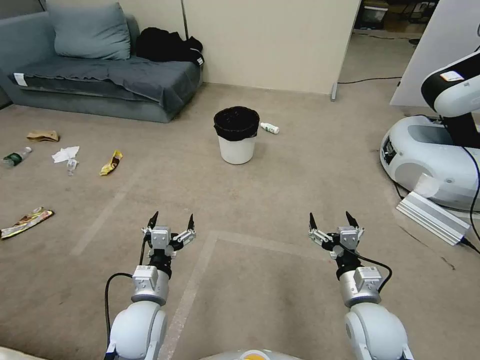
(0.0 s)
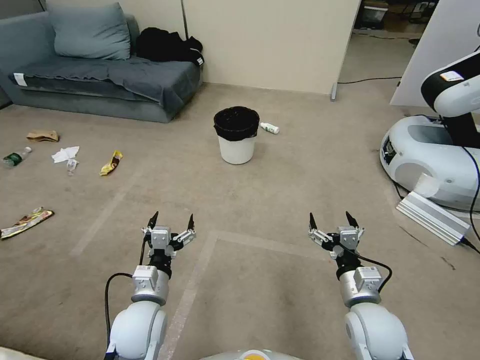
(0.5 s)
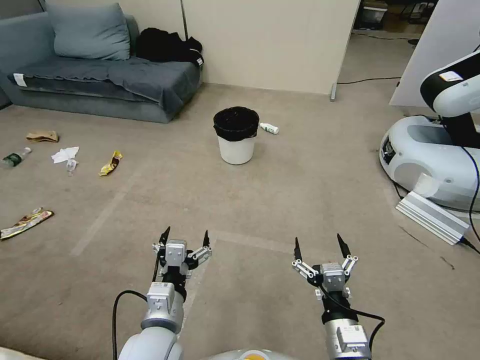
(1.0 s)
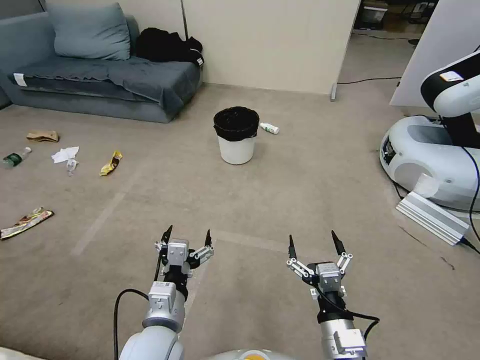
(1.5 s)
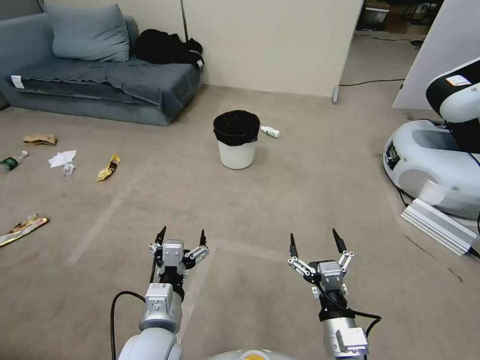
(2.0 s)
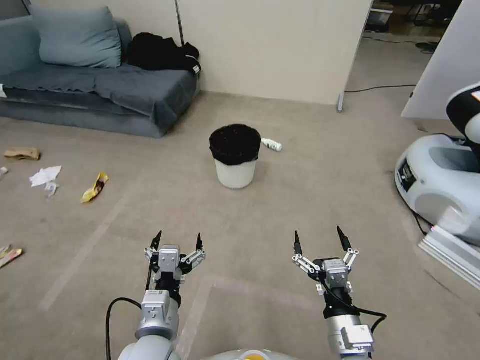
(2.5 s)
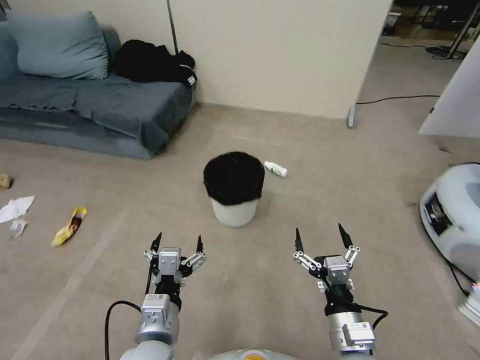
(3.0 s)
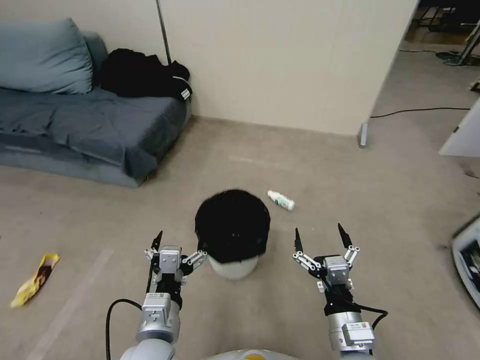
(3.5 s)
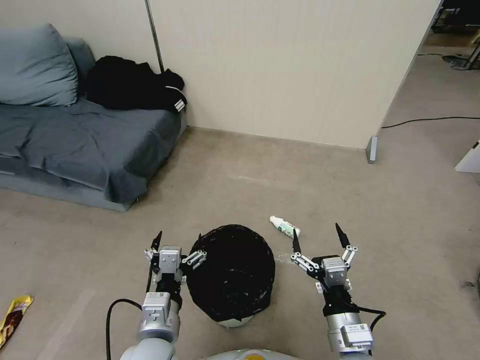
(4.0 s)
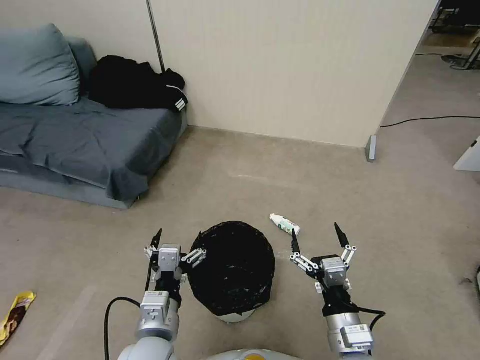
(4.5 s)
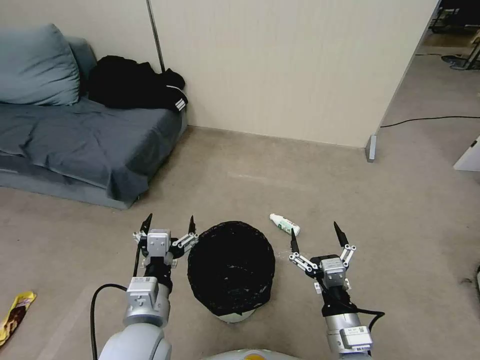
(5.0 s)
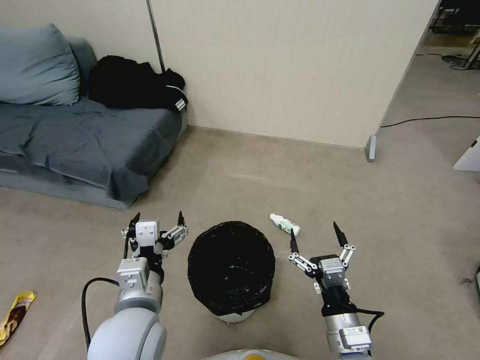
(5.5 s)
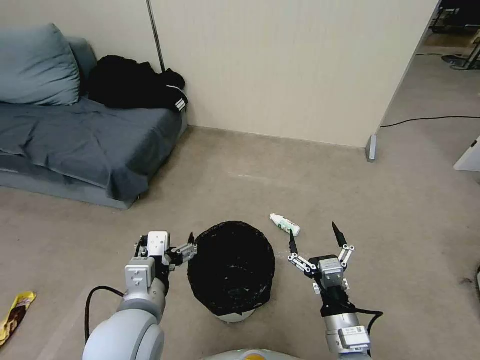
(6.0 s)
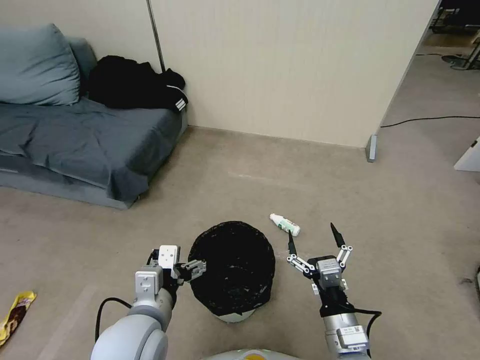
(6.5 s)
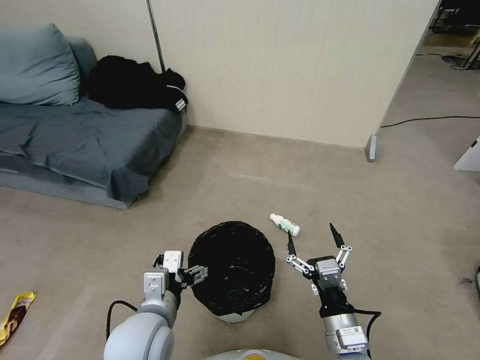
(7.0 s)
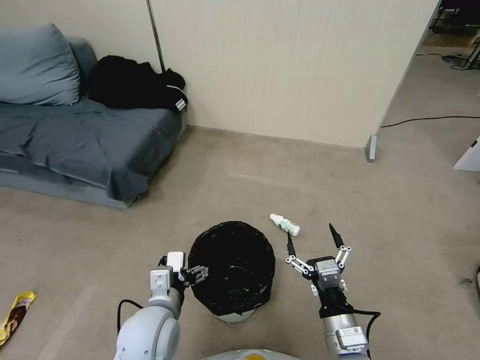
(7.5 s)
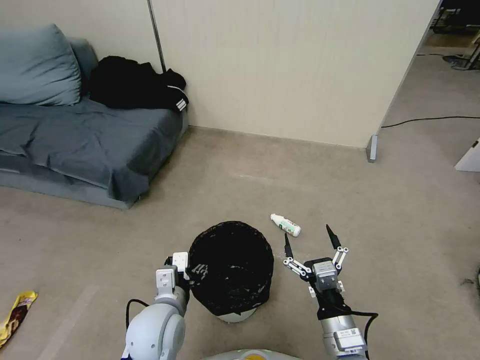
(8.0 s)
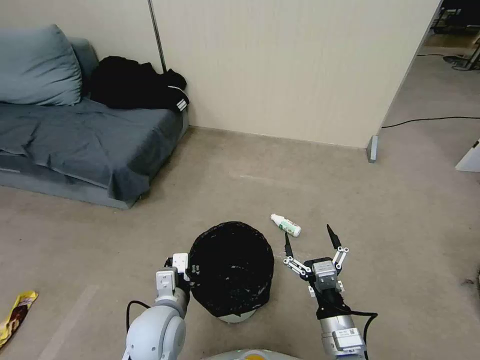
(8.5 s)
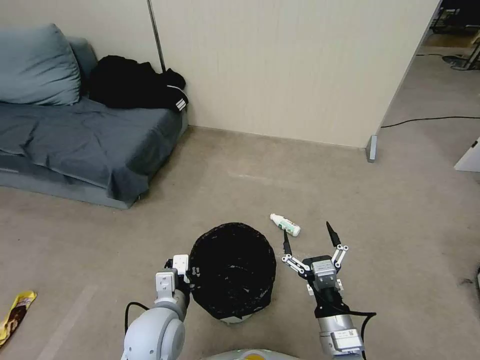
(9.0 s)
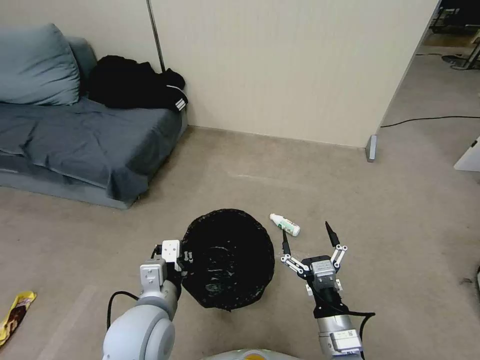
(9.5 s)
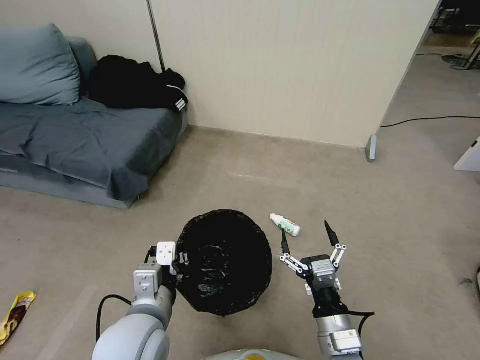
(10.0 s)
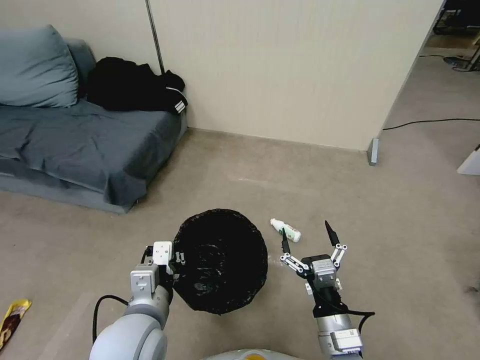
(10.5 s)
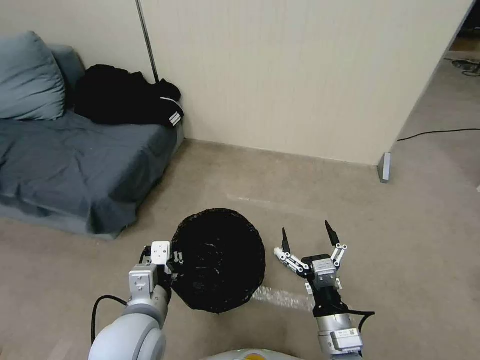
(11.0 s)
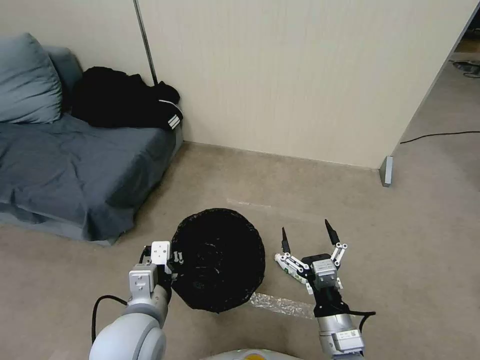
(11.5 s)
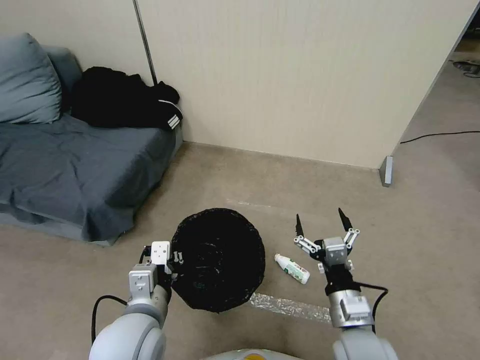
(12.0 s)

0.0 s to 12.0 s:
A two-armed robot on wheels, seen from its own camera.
Task of the whole recording: Pick up the trash bin, then pick up the garbage from the floor and place it into the trash bin.
4.0 to 6.0 s: The left gripper is displaced upward by some 10 cm.
6.0 to 8.0 s: The left gripper moves downward, roughly 10 cm, and closes.
8.0 to 10.0 s: The left gripper heads upward, covering about 10 cm, and closes its fingers.
10.0 to 12.0 s: The right gripper ends up approximately 5 cm from where it was.

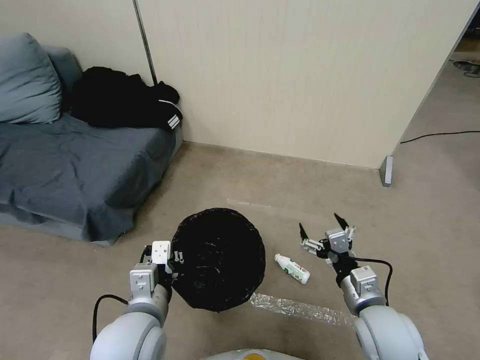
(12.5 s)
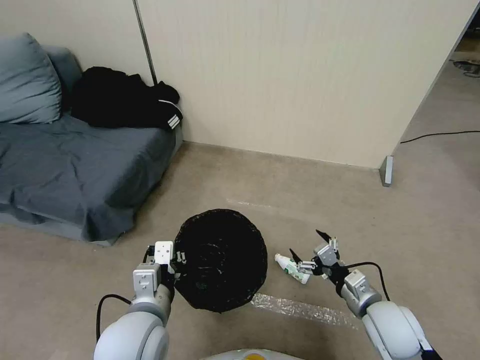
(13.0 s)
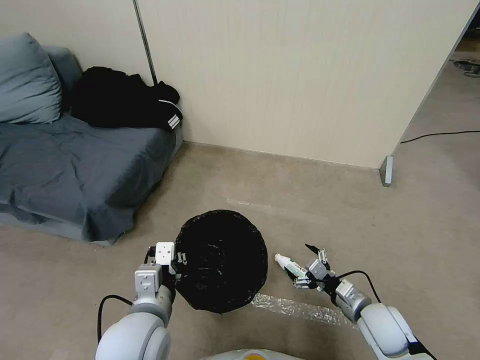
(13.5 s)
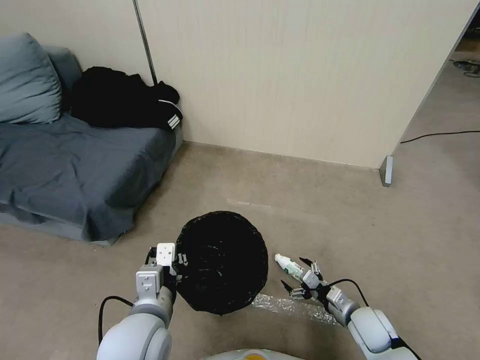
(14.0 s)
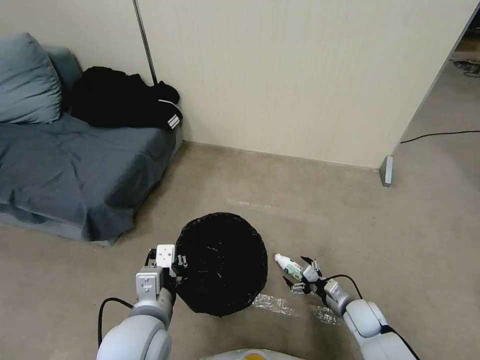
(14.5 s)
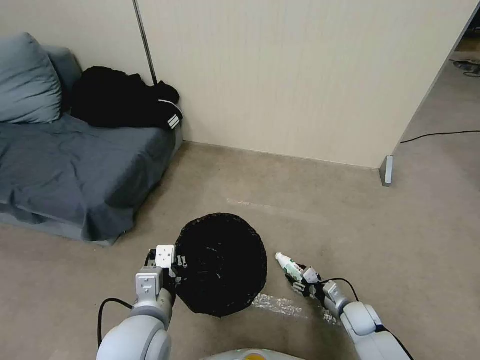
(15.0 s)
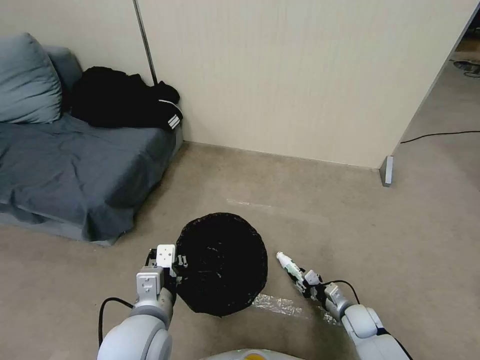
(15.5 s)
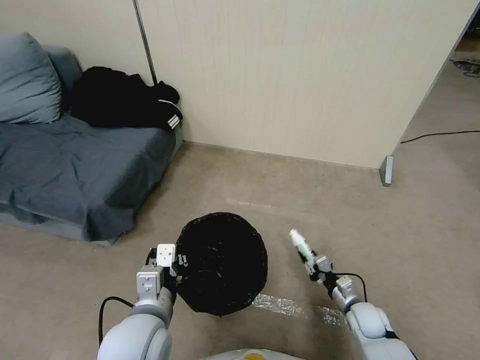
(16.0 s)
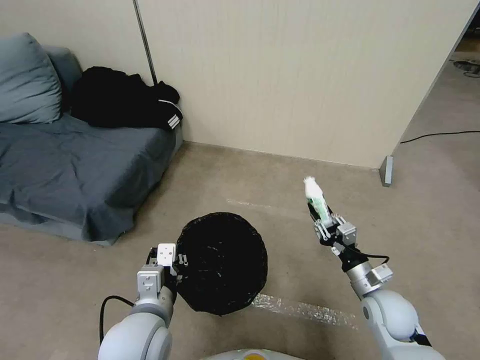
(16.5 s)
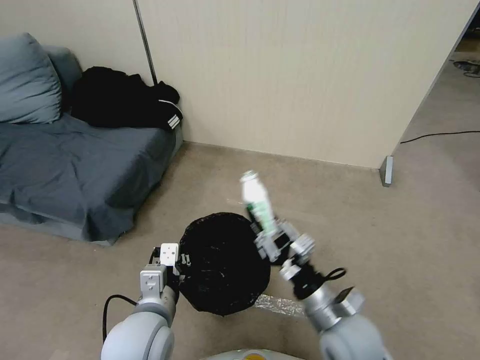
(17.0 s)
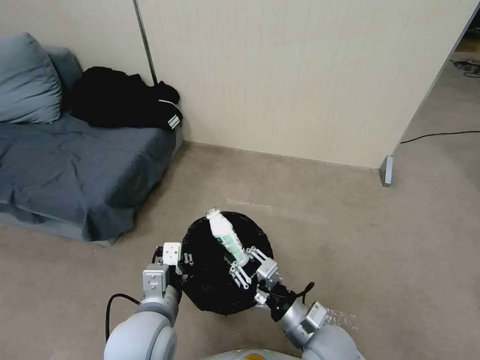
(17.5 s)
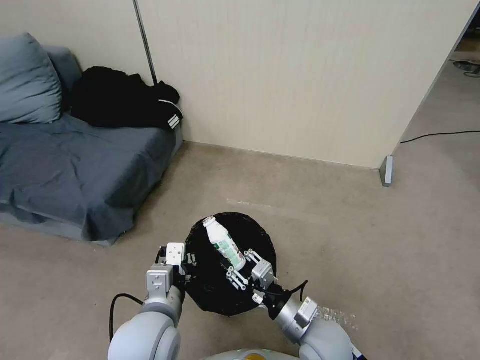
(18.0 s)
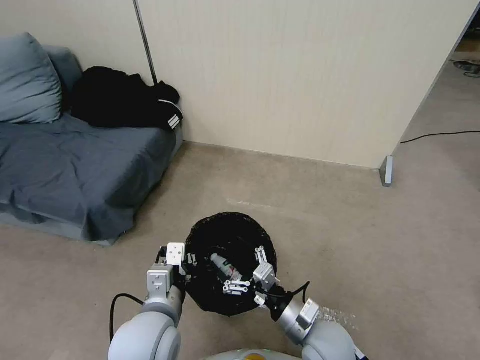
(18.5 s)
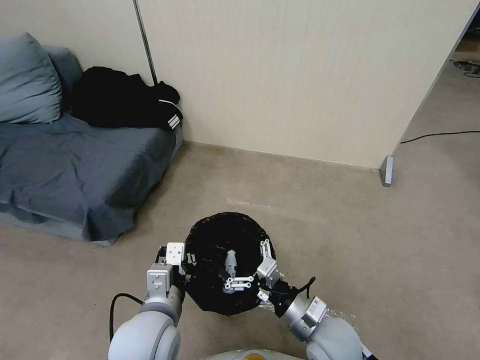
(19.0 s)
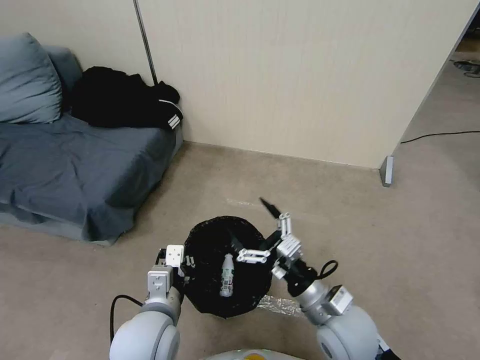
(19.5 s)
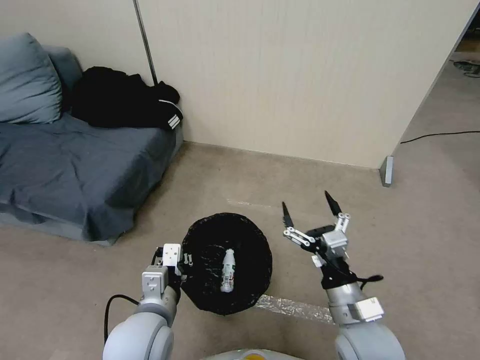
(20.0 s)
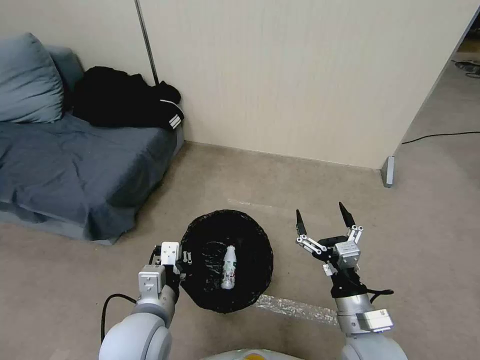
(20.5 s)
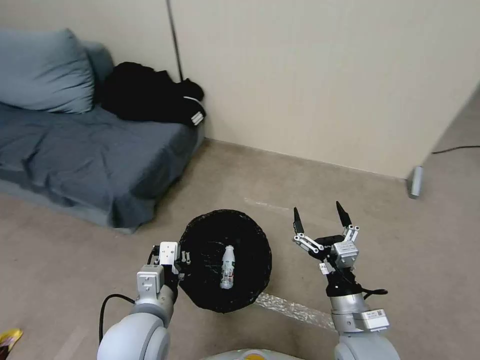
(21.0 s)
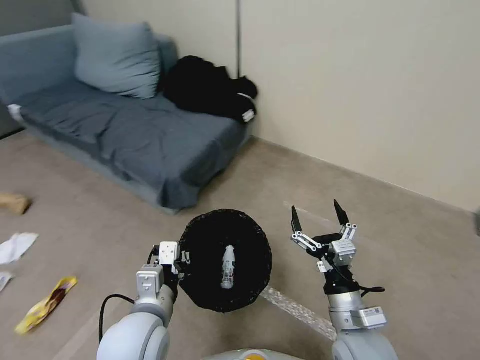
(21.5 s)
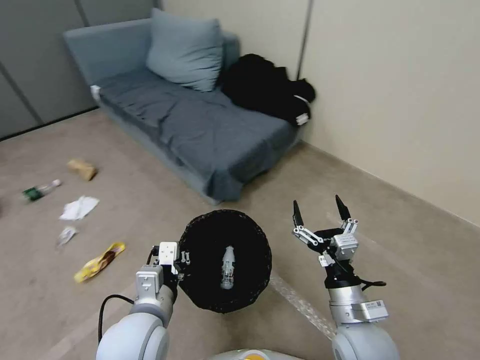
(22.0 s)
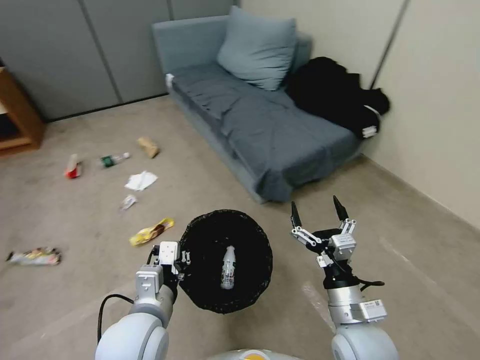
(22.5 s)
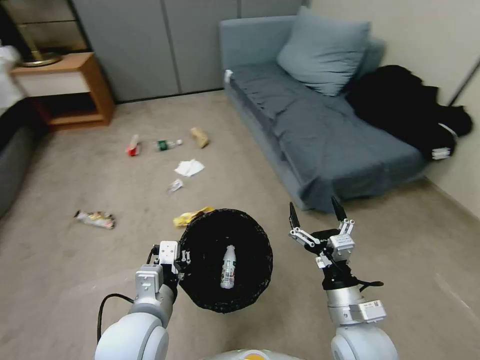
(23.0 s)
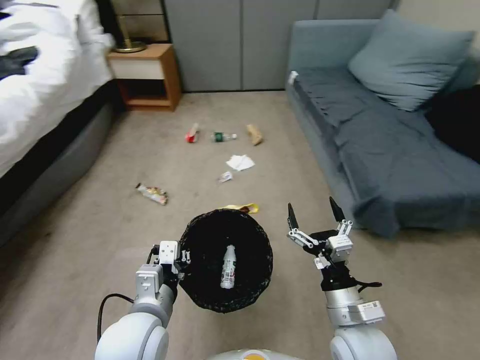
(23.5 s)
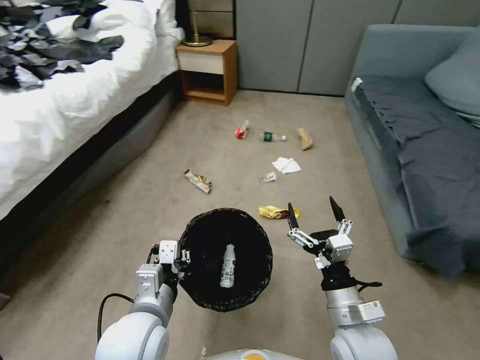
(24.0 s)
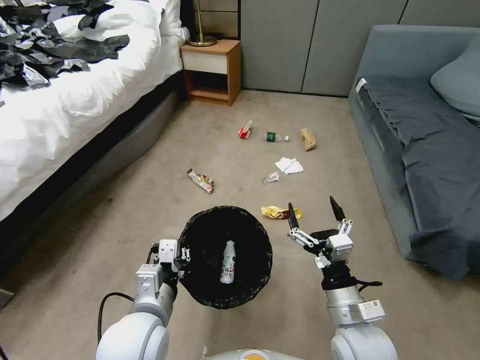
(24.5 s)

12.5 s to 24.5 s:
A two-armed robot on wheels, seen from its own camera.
Task of the whole recording: Pick up the trash bin, then pick up the garbage from the floor and place it into the trash bin.
12.5 to 14.5 s: The right gripper travels downward by about 20 cm.
14.5 to 16.5 s: The right gripper shifts some 15 cm upward, and closes.
16.5 to 18.5 s: The right gripper goes roughly 15 cm to the left and backward, and opens up.
18.5 to 20.5 s: The right gripper heads to the right and upward, covering approximately 10 cm.

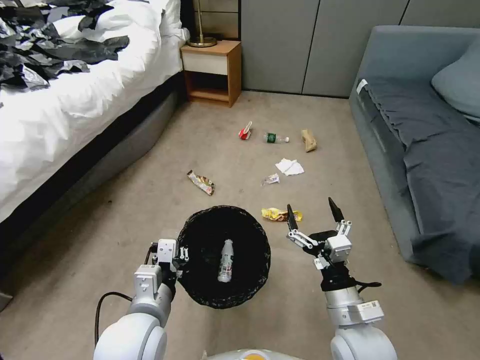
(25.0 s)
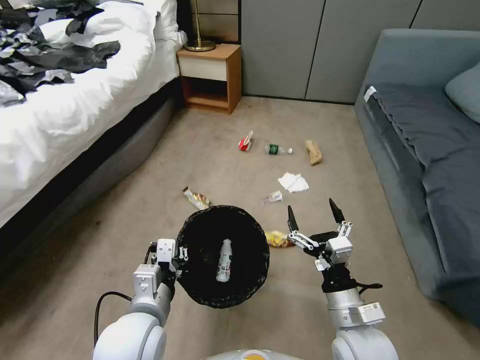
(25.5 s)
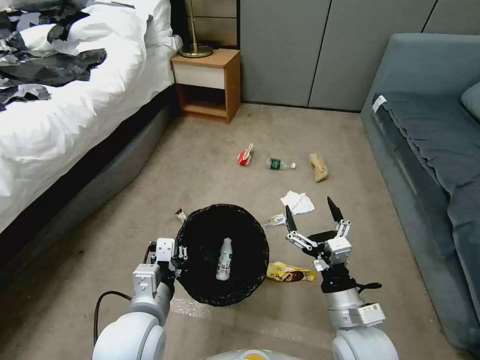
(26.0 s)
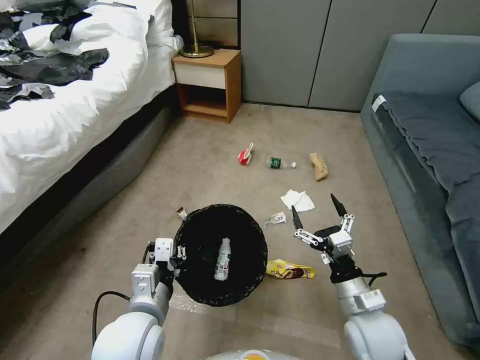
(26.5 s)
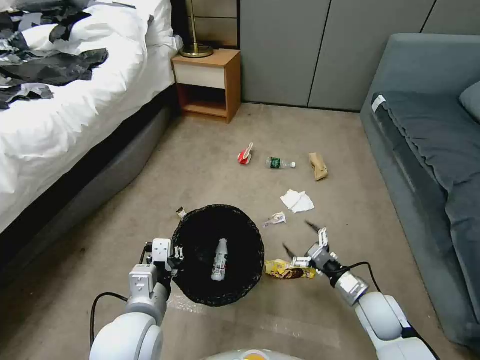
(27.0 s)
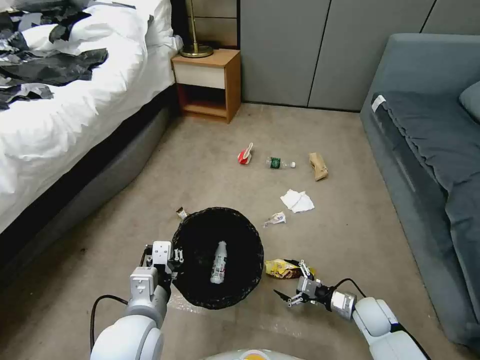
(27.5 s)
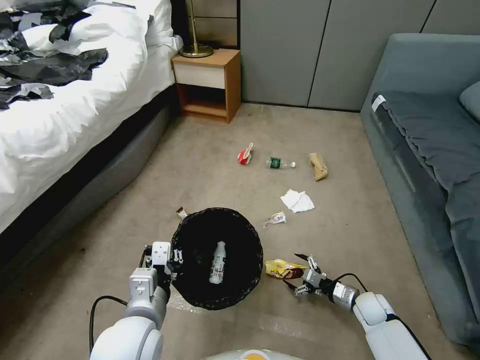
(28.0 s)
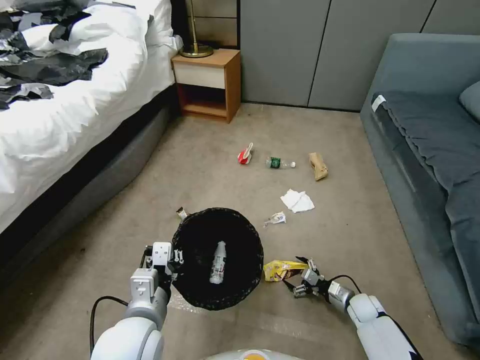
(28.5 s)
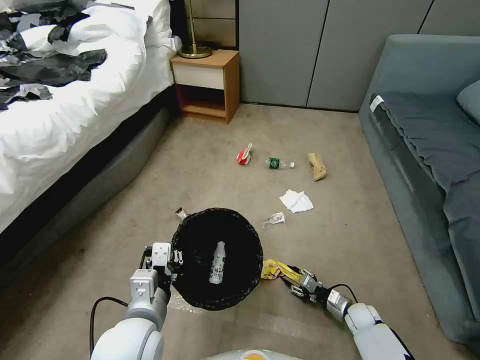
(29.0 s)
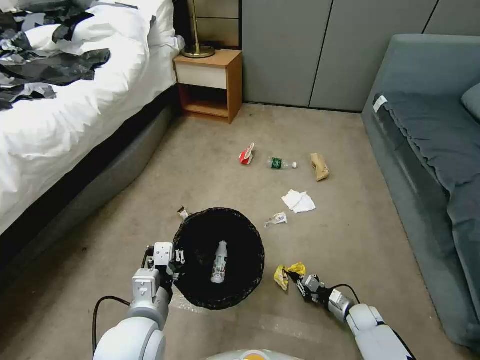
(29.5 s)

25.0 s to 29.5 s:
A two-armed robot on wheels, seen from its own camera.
Task of the whole recording: Pick up the trash bin, then pick up the garbage from the floor and place it into the trash bin.
25.0 to 27.0 s: The right gripper goes about 20 cm downward, to the right and forward.
27.0 to 29.5 s: The right gripper moves downward, roughly 15 cm, and closes up.
